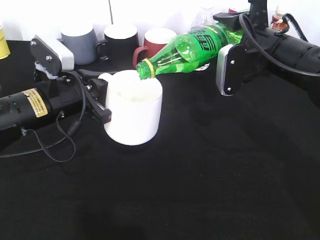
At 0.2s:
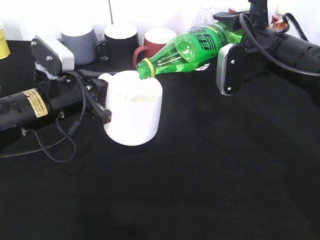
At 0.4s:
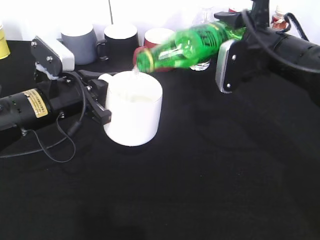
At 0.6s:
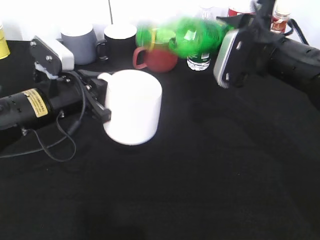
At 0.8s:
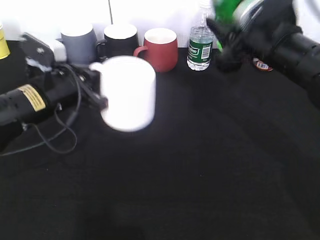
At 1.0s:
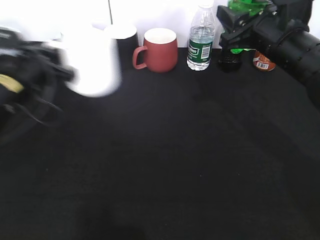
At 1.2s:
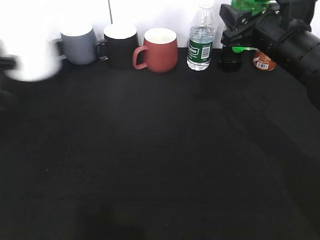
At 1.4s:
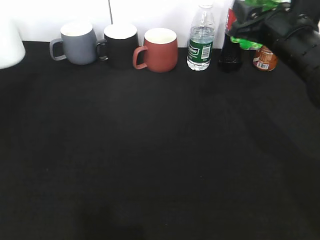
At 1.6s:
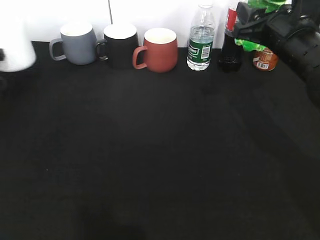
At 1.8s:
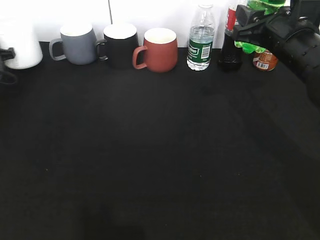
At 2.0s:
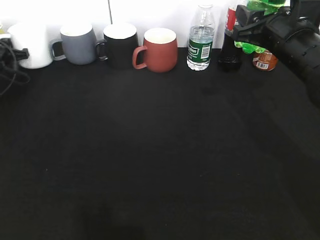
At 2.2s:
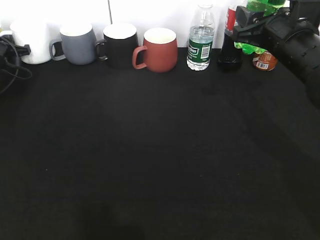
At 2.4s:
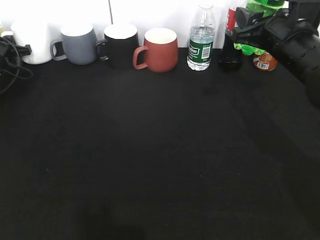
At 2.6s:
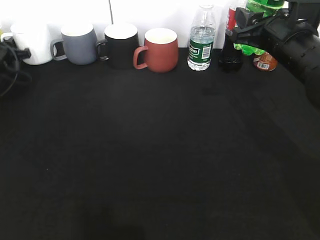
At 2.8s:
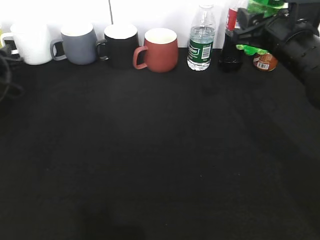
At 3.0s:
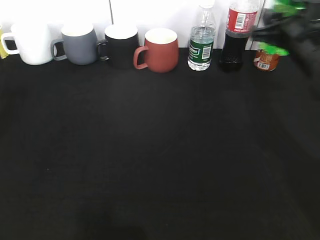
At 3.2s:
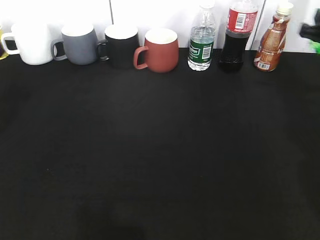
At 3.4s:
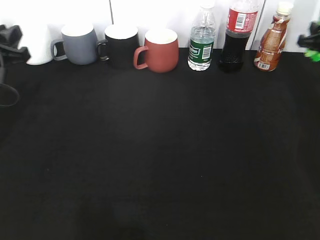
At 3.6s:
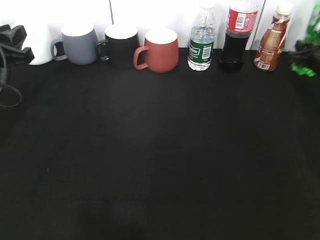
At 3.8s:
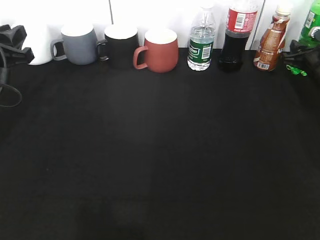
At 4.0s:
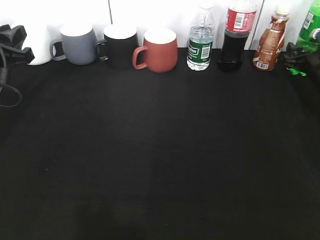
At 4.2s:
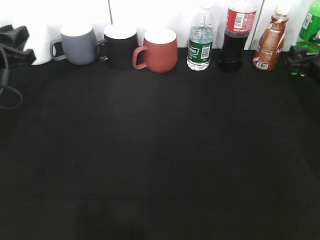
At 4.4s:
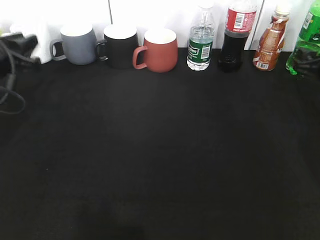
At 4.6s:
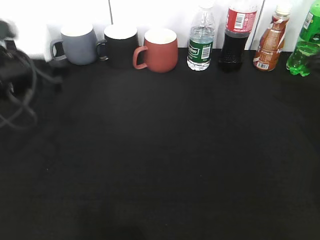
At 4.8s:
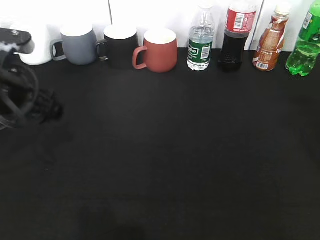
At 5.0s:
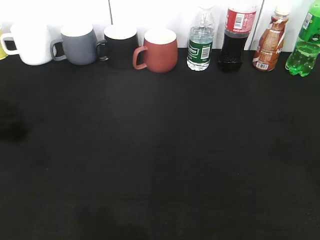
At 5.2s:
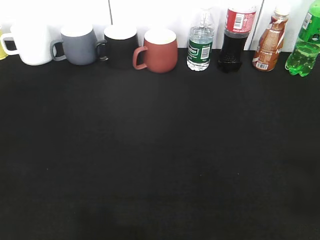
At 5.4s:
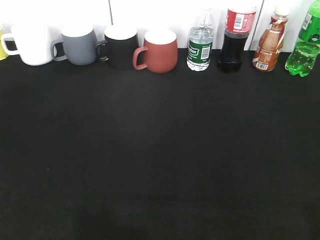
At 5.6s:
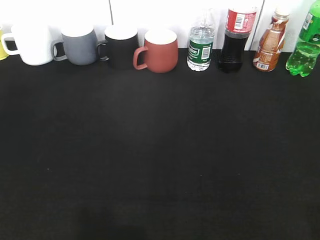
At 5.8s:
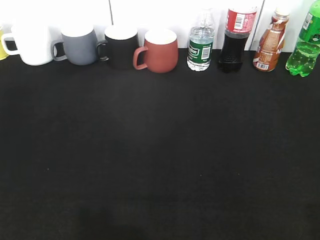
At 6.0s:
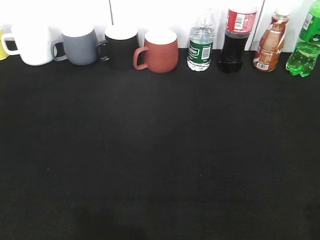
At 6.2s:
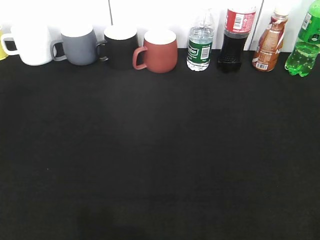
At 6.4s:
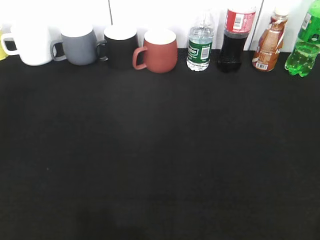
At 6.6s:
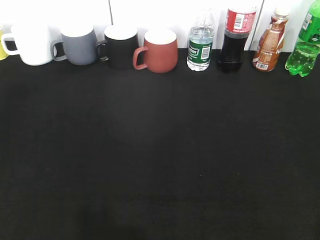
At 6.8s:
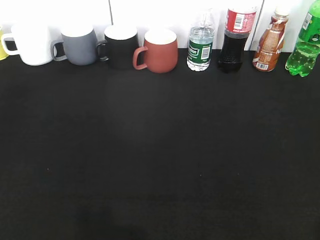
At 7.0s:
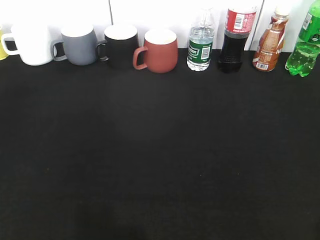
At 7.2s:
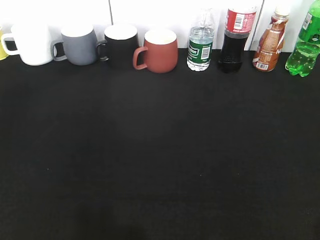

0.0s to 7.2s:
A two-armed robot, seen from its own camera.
Step, 0.8s to 4.2s: Place the sprite bottle on the table with right gripper.
0.0s to 1.4s: The left gripper moves to the left, roughly 20 cm.
1.4s to 2.8s: The left gripper heads downward and forward, covering roughly 10 cm.
2.8s to 4.4s: The right gripper moves to the right and downward, approximately 15 cm, and opens its fingers, while the left gripper travels backward, to the right and upward by about 15 cm.
4.4s to 5.8s: The right gripper goes approximately 40 cm backward and upward. Meanwhile the left gripper moves backward, some 30 cm, and opens up.

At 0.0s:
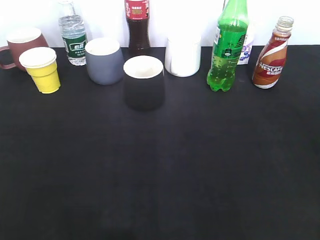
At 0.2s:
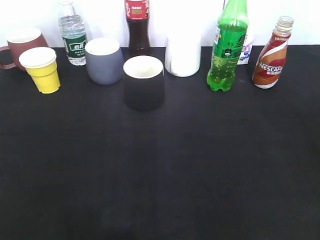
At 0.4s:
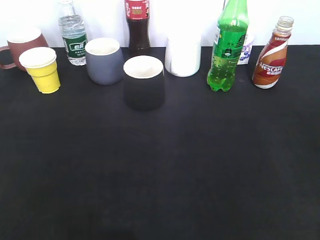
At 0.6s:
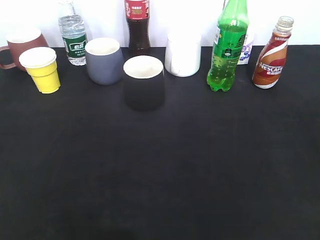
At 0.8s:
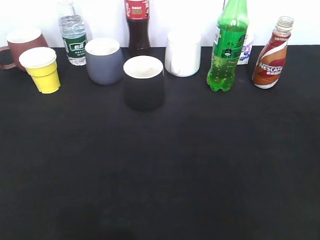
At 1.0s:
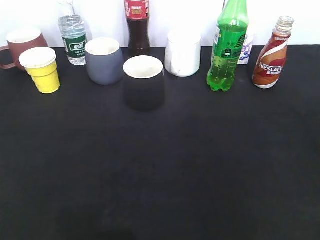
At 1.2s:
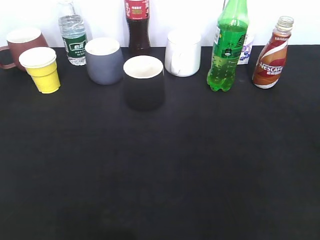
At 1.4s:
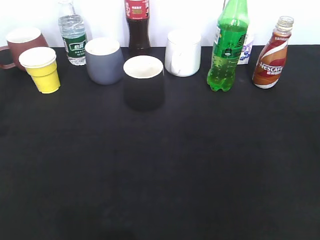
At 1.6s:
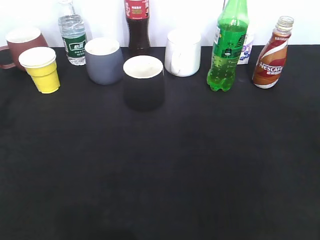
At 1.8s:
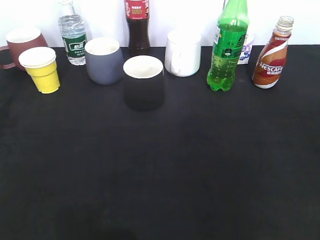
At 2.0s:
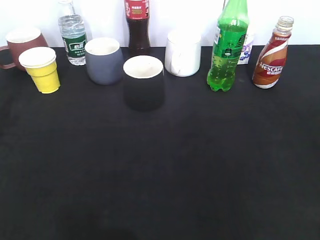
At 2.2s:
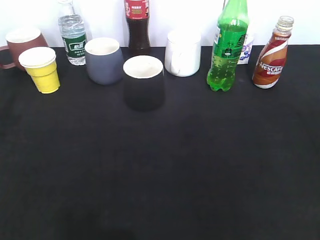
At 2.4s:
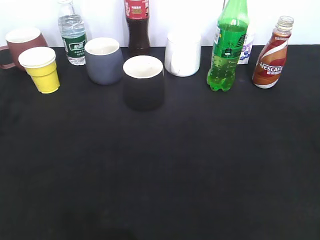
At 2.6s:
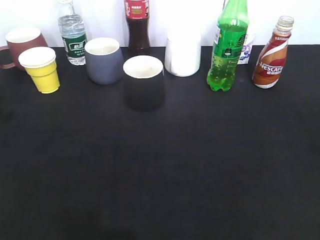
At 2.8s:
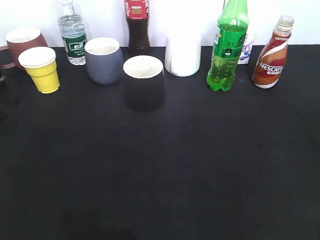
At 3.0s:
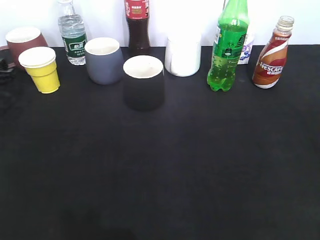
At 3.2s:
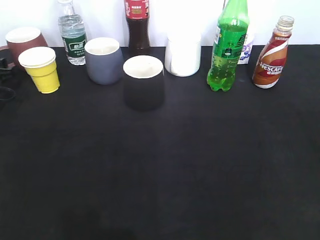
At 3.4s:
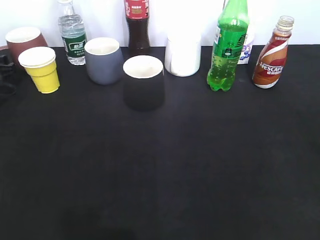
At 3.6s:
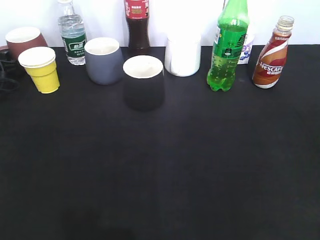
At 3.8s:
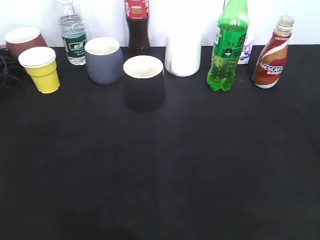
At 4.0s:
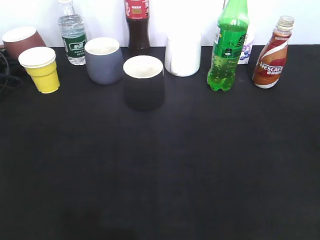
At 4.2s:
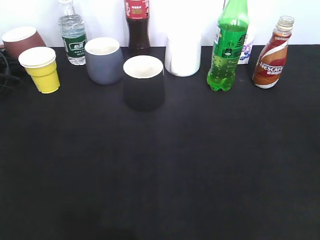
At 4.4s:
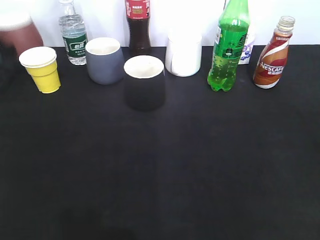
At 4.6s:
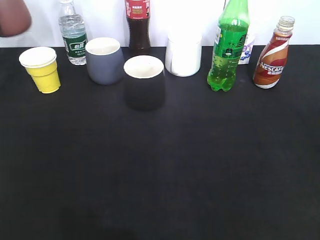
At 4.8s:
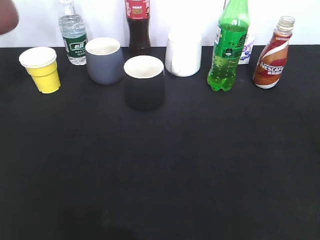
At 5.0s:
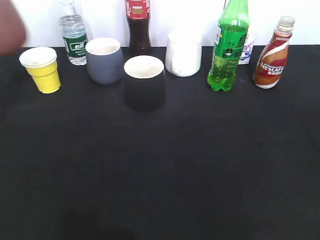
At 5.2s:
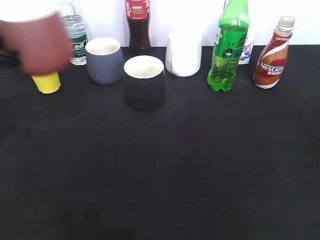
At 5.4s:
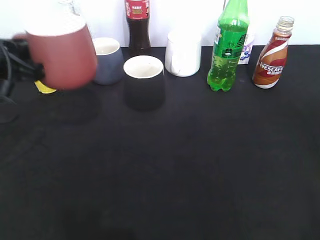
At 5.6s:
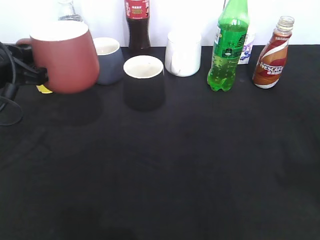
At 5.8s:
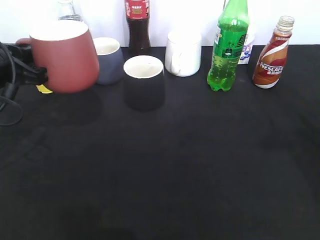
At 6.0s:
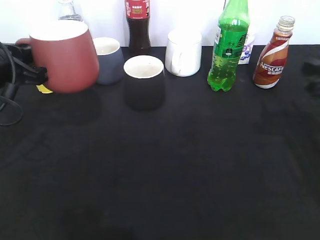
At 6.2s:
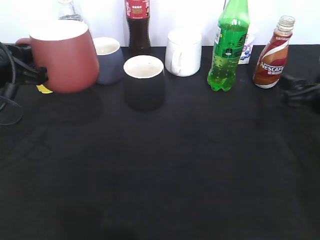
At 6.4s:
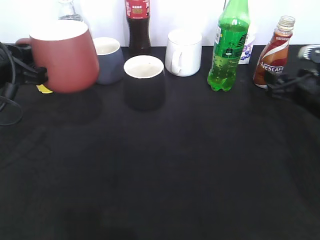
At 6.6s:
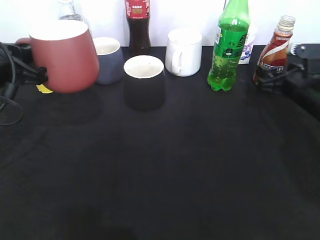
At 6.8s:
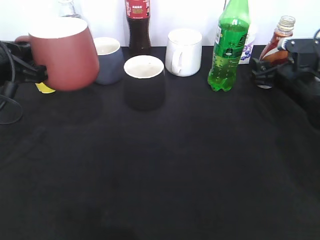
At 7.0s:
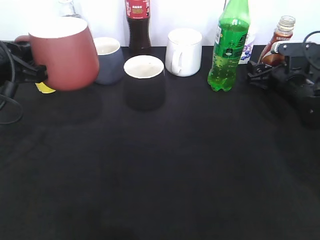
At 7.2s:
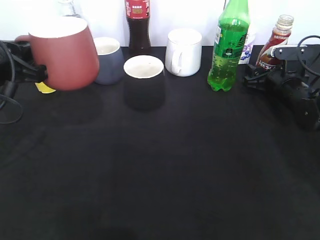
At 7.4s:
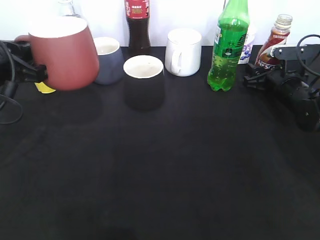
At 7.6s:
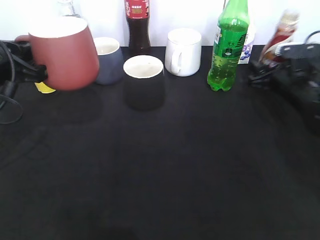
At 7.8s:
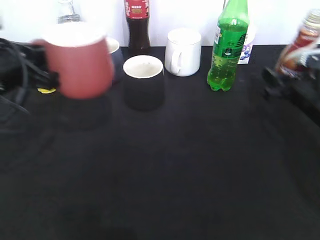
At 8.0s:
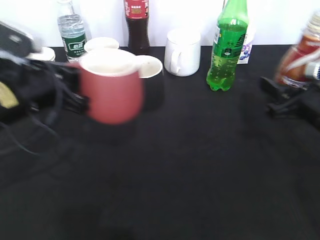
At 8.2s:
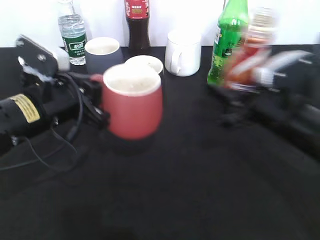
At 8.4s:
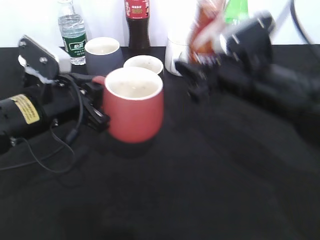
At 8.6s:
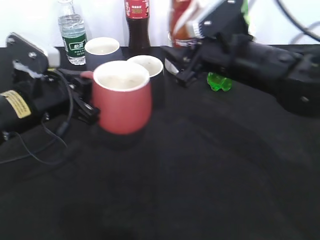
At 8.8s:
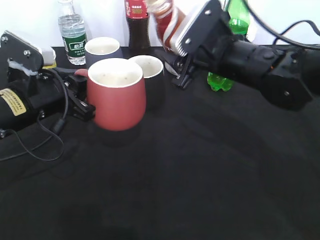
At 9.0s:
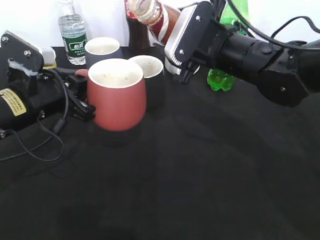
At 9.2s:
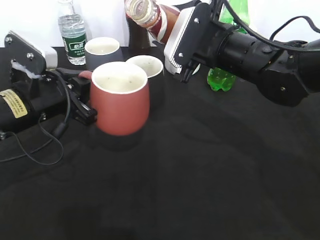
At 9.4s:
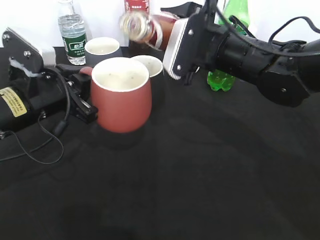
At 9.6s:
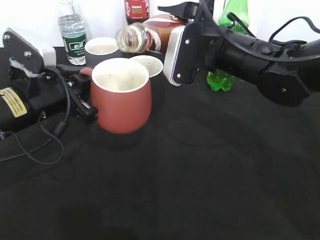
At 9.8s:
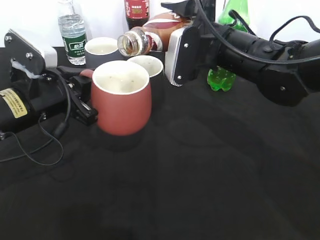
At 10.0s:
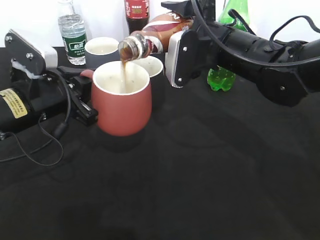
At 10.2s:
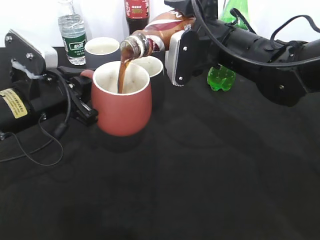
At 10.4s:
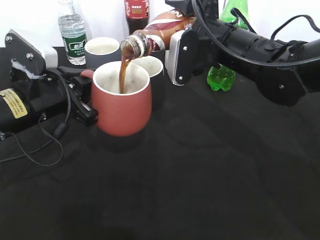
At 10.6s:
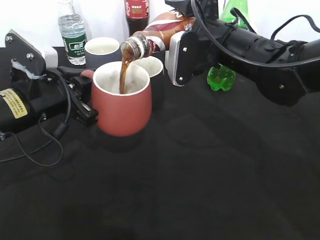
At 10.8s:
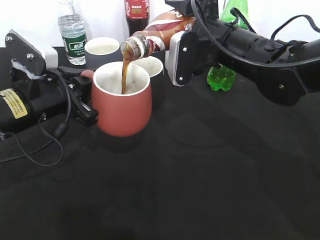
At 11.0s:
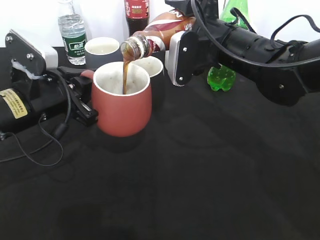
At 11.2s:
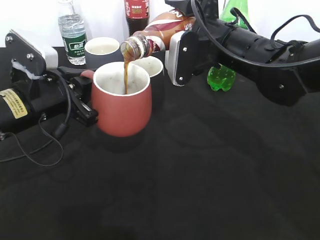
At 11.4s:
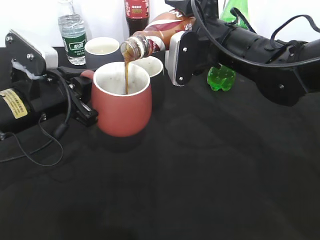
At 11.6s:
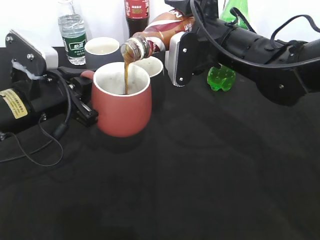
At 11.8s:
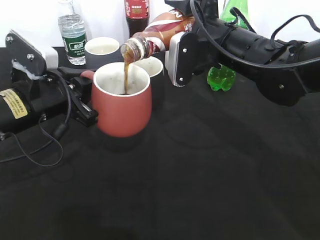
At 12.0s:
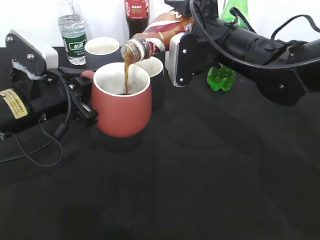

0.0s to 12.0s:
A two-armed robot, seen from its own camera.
Step, 4.2s to 5.8s: Lift the red cup with left gripper.
Step, 6.0s to 7.4s: Grasp the bottle with coffee with right gripper.
0.0s to 1.6s: The left gripper heads forward, covering some 25 cm.
3.0s to 4.4s: The left gripper travels forward by about 5 cm, and closes up.
4.4s to 6.0s: The right gripper heads forward, covering approximately 25 cm. Meanwhile the left gripper shifts about 25 cm backward and to the right.
6.0s to 7.6s: The right gripper is displaced forward and downward by some 15 cm, and opens and closes again.
7.6s to 9.0s: The left gripper is displaced to the right by about 5 cm; the right gripper goes roughly 20 cm to the left and upward.
10.4s to 12.0s: Both grippers stay about where they are.

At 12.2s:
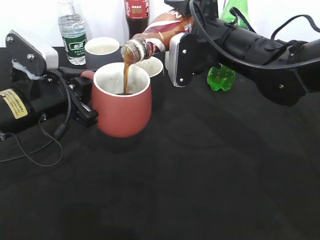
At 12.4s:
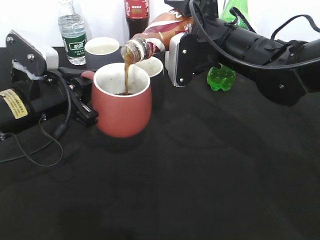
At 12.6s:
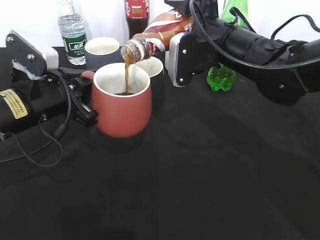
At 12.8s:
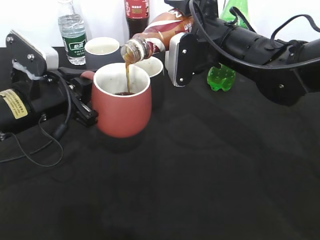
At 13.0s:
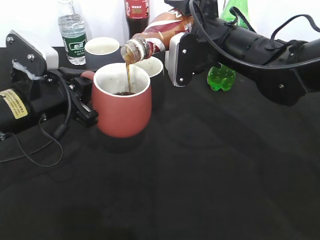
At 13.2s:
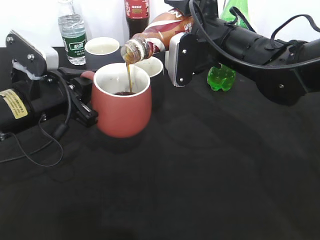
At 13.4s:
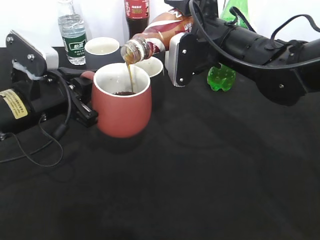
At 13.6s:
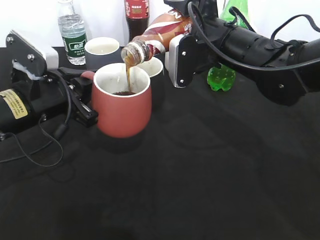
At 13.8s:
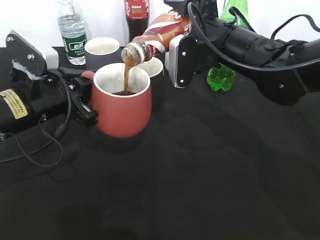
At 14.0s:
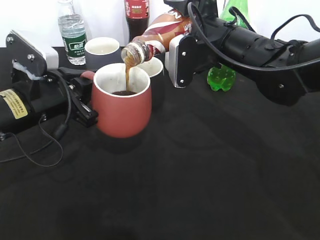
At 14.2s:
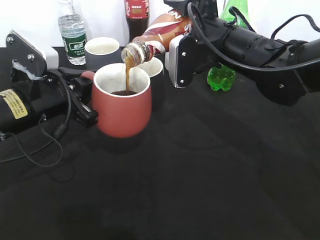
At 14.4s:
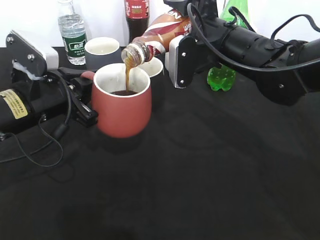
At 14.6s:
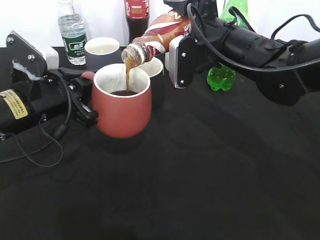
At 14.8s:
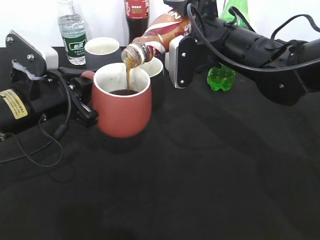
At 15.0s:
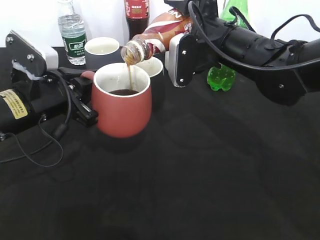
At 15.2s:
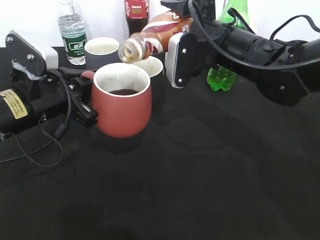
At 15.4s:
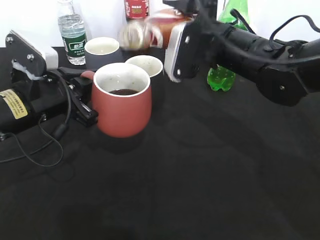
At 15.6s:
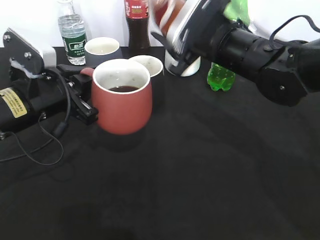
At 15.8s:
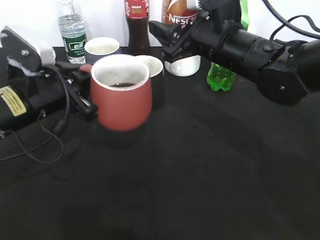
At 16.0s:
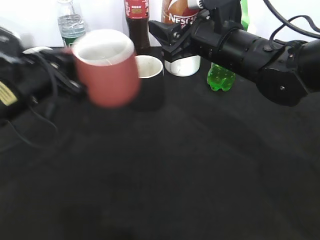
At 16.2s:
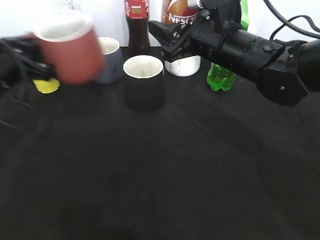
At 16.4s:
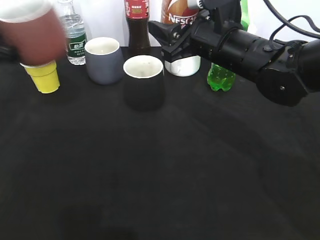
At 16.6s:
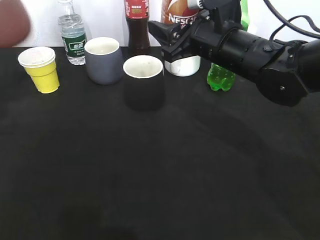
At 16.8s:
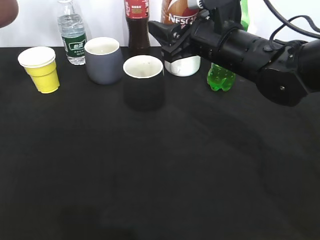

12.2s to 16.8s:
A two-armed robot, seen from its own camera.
Step, 12.2s to 15.6s: Pour the coffee from bottle to cup with right gripper.
12.2s to 13.8s: Neither gripper changes place.
13.8s to 15.2s: There are only small adjustments of the grippers.
15.2s to 16.8s: The left gripper is displaced to the left and forward by roughly 20 cm.
